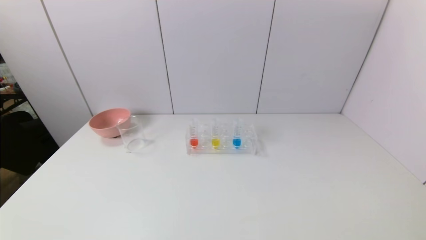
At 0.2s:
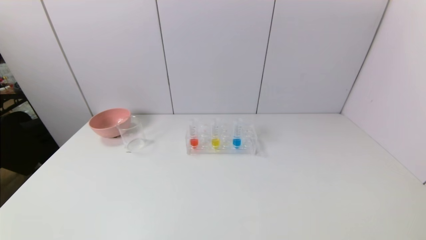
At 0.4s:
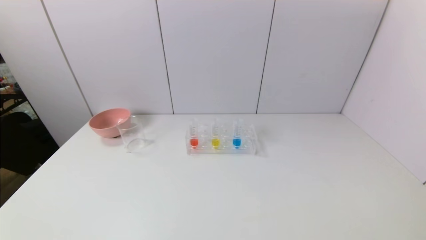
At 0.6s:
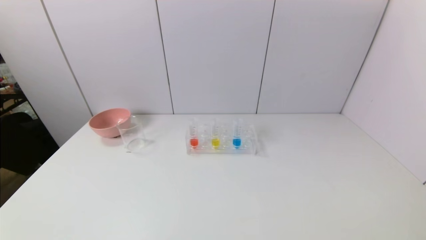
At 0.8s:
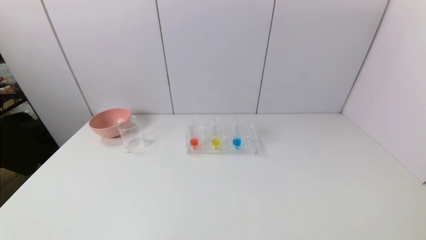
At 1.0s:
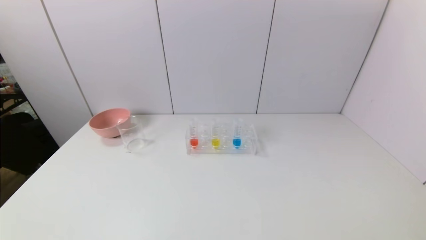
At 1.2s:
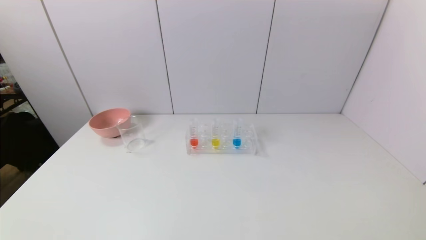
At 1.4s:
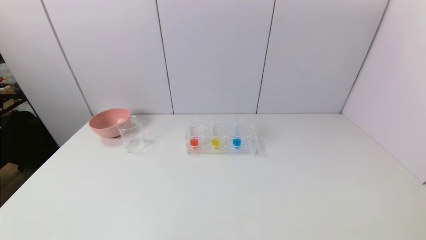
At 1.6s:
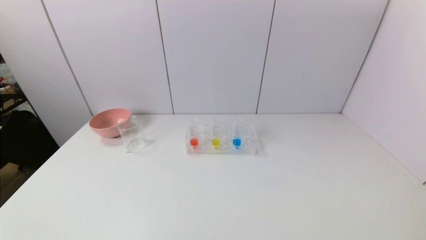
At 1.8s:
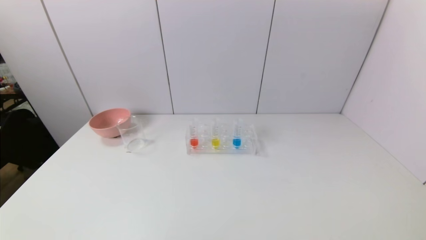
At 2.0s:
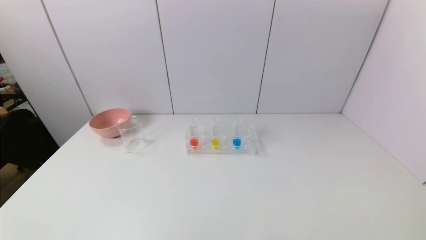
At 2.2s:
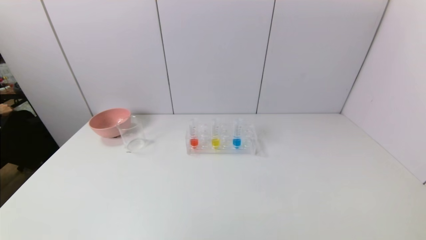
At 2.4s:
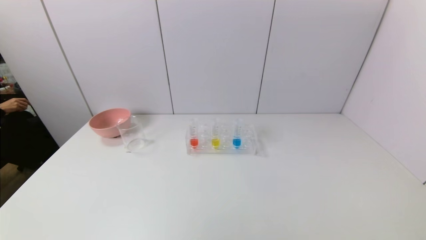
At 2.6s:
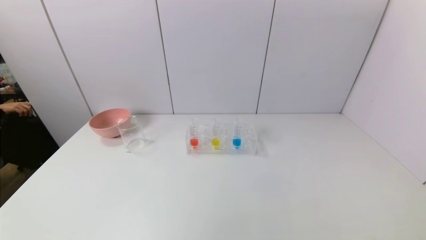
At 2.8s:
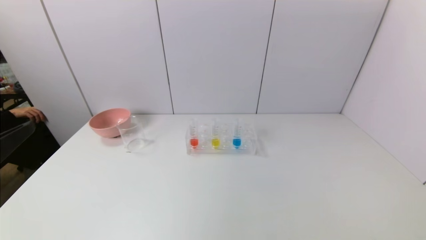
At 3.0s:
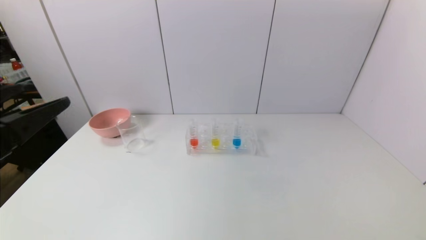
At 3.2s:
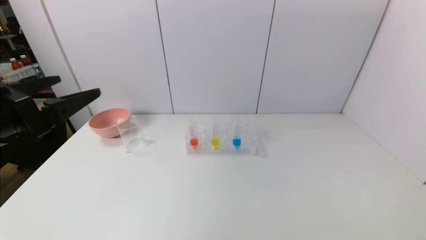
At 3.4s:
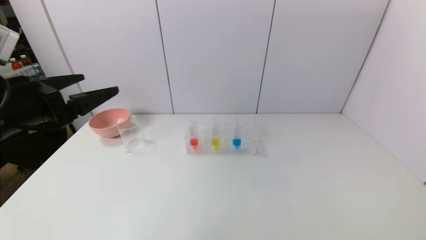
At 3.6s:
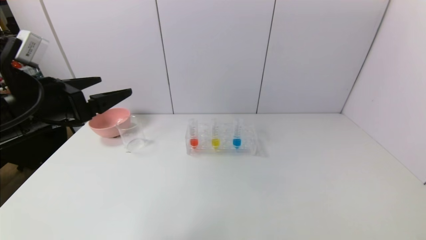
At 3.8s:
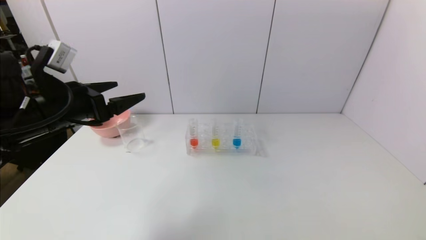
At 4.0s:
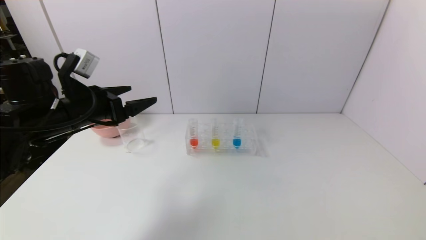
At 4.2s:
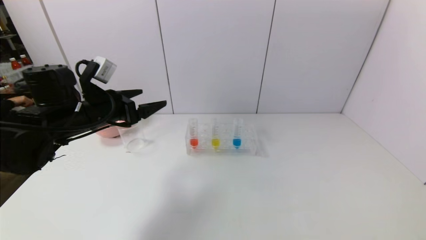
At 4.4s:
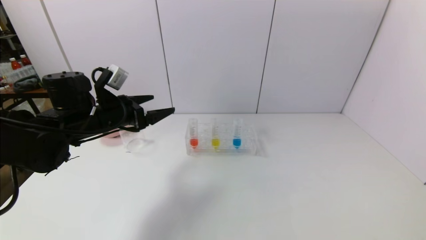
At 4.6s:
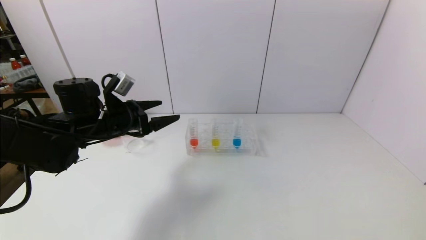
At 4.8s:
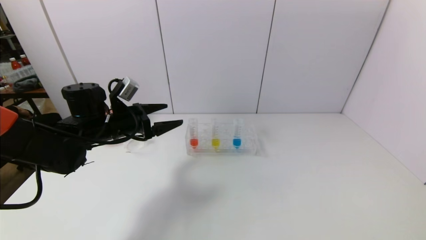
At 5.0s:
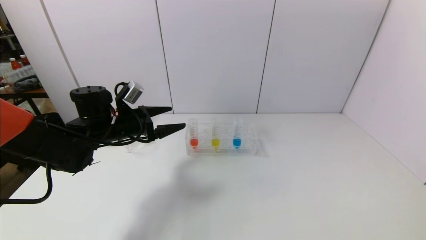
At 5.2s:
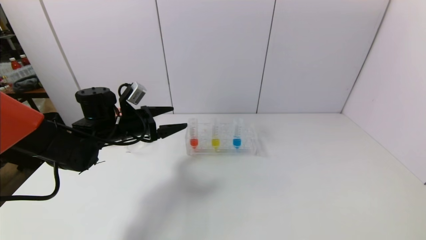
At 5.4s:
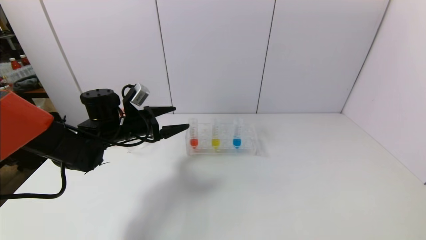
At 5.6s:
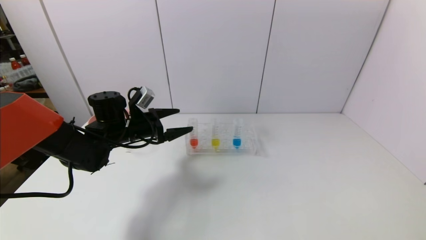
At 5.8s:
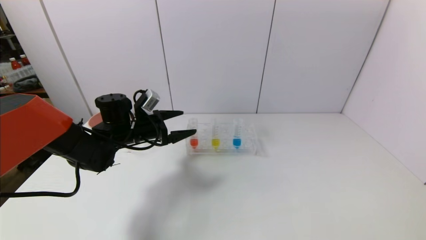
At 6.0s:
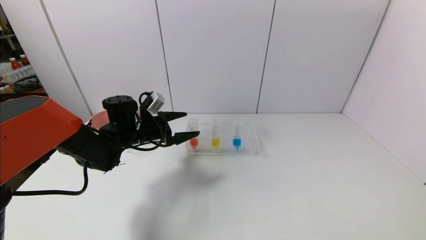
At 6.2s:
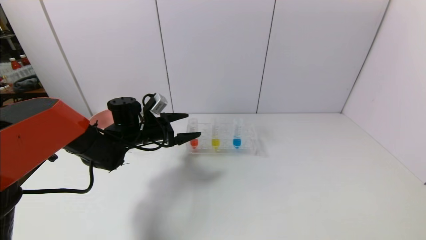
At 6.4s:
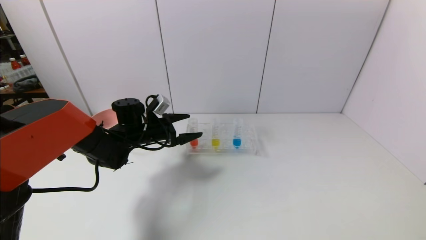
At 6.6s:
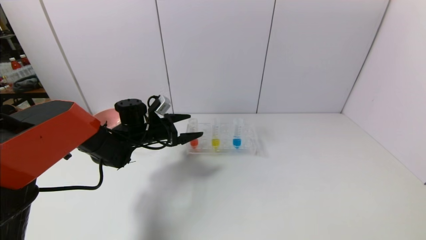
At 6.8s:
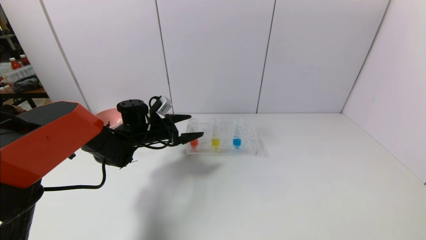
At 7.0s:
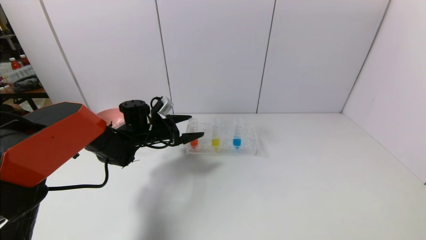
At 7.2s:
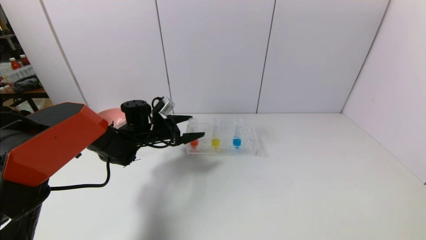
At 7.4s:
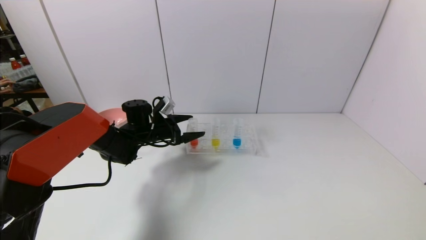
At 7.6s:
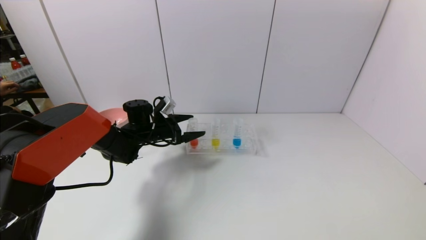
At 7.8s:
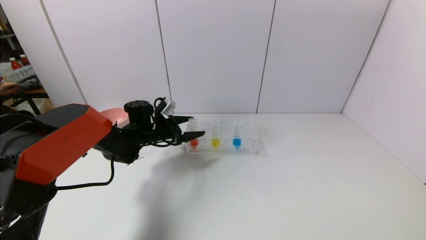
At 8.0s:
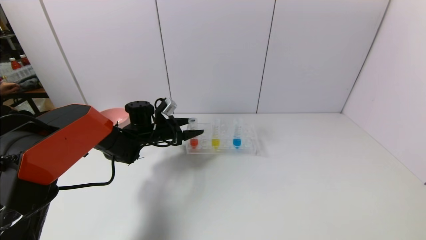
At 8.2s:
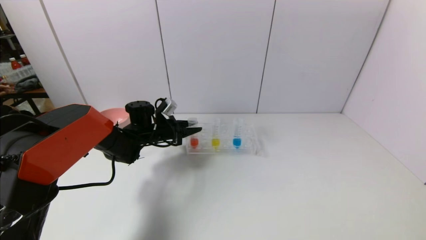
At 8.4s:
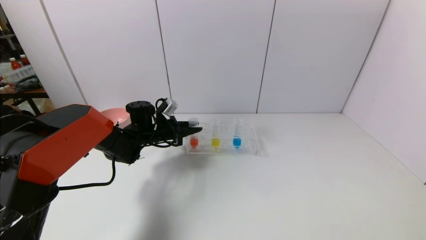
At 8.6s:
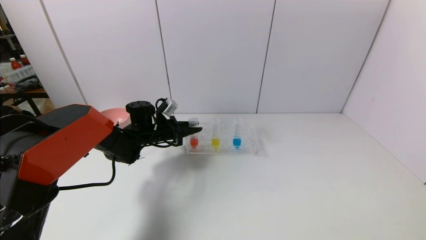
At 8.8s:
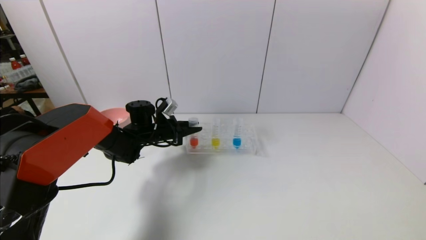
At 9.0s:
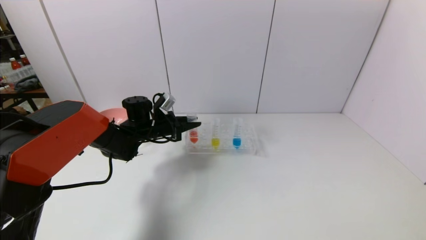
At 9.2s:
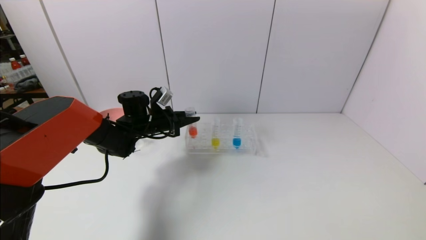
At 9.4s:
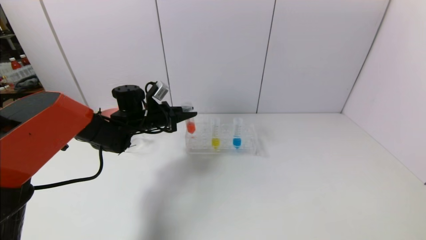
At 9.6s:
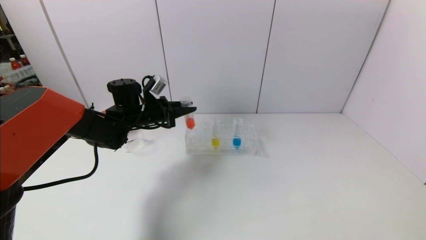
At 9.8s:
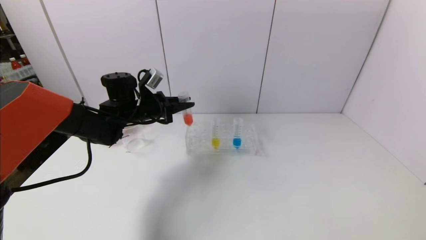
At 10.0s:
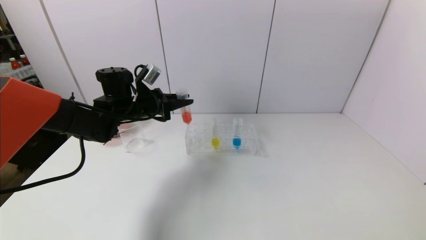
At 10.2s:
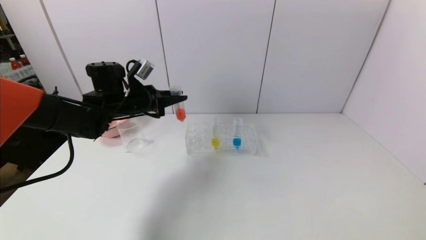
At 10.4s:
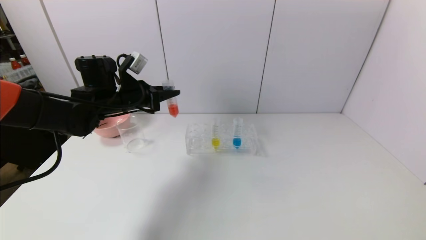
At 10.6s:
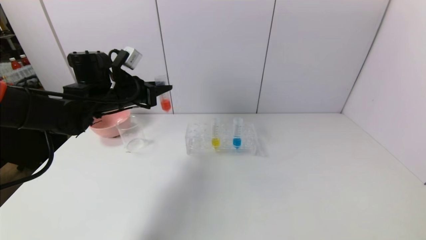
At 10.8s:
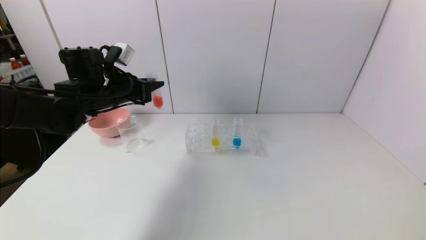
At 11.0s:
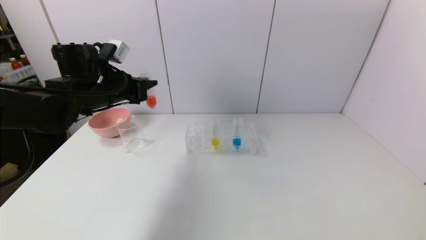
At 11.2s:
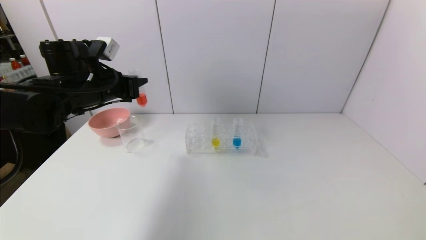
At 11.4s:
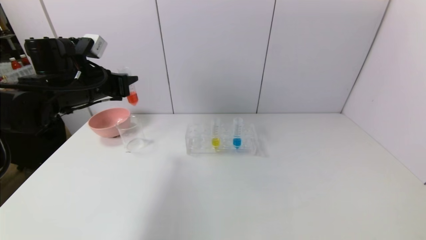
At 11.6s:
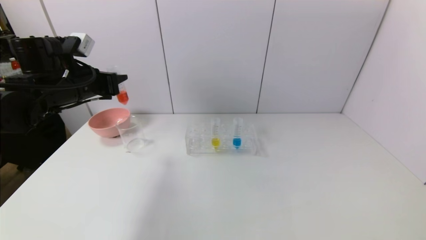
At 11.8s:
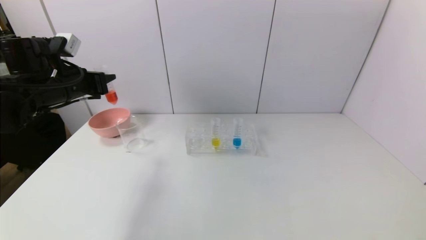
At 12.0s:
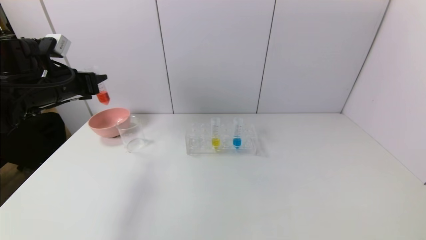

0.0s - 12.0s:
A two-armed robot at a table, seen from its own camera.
Task of the whole recording: pick up the test tube with red pigment and the test tube with blue pigment by grippers and pour them into the container.
Step, 0.0s - 8.4s: Grasp the red reagent with the left gripper.
1.6s - 3.0s: The left gripper heads upward and forward, covering some 25 cm.
3.0s - 4.4s: The left gripper goes some 20 cm forward.
4.4s - 6.0s: The left gripper travels downward and forward by roughly 10 cm.
6.0s - 7.6s: The left gripper changes place by approximately 5 cm.
7.6s - 9.0s: The left gripper closes.
9.0s - 10.4s: The left gripper goes approximately 15 cm upward and backward.
10.4s - 12.0s: The left gripper heads to the left, covering roughly 10 cm.

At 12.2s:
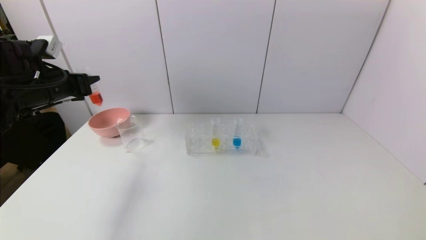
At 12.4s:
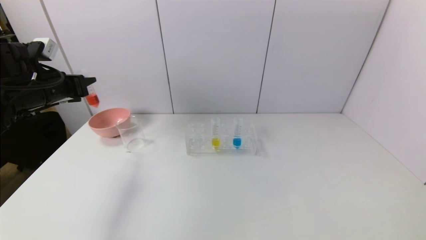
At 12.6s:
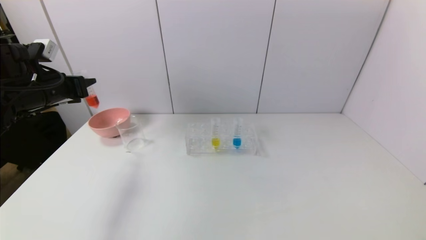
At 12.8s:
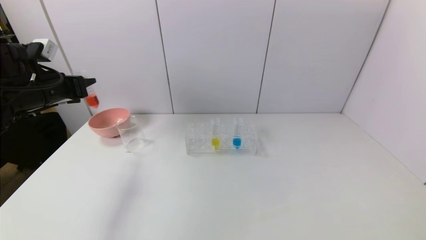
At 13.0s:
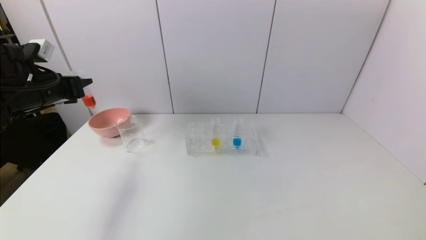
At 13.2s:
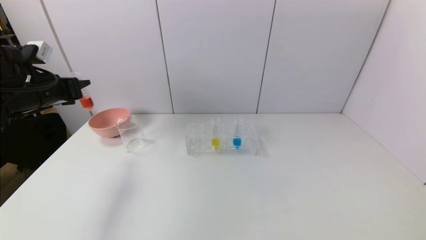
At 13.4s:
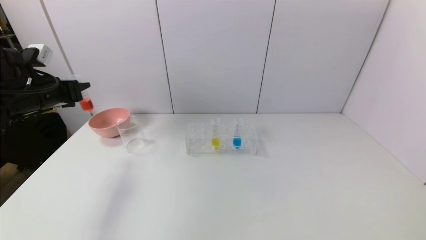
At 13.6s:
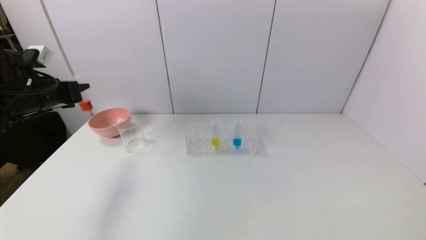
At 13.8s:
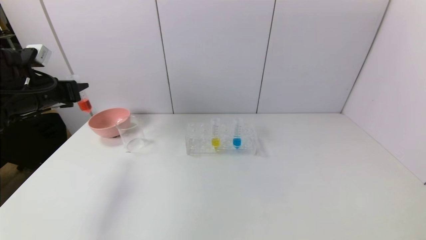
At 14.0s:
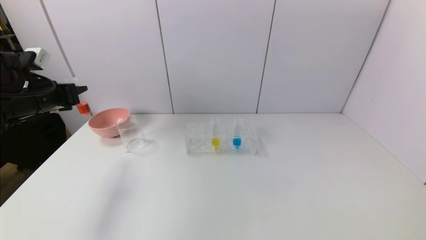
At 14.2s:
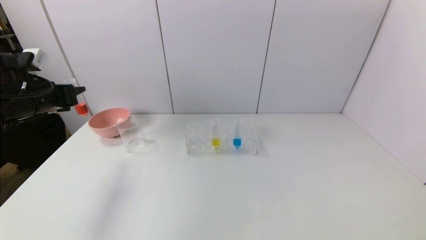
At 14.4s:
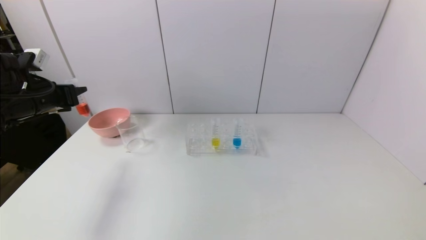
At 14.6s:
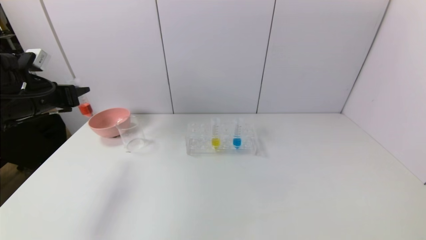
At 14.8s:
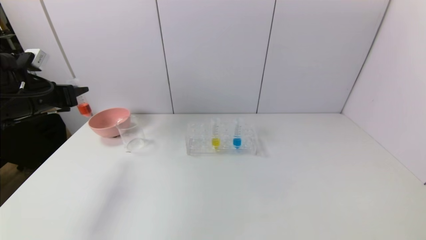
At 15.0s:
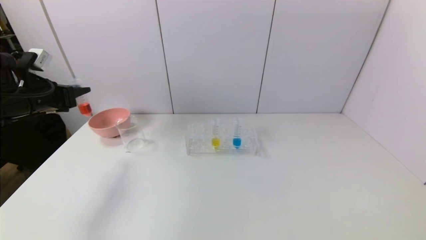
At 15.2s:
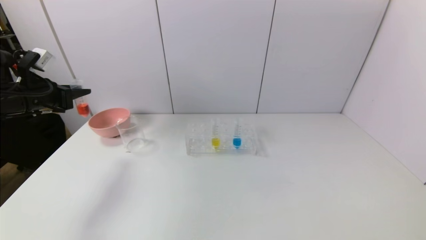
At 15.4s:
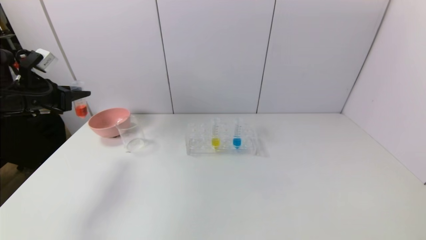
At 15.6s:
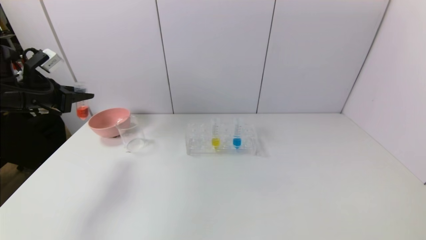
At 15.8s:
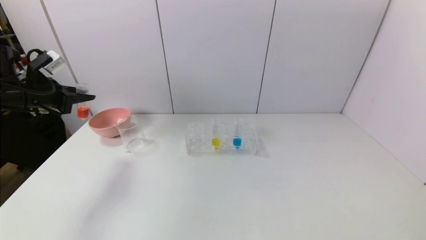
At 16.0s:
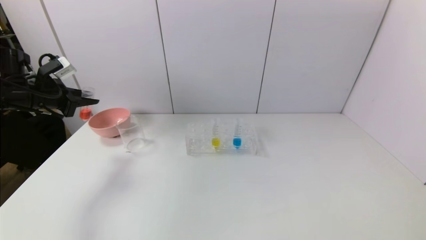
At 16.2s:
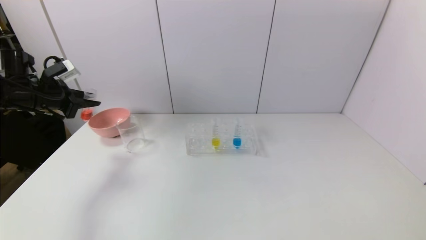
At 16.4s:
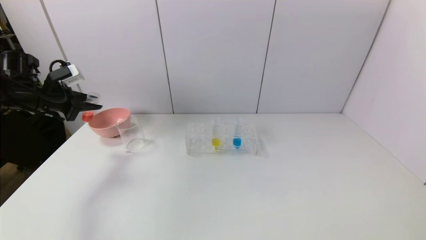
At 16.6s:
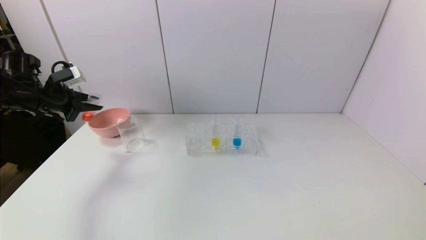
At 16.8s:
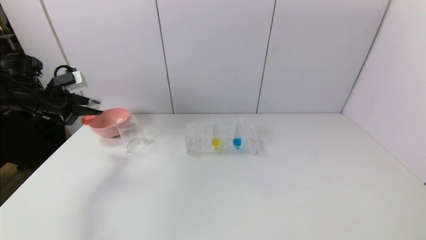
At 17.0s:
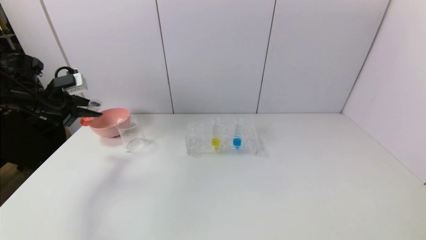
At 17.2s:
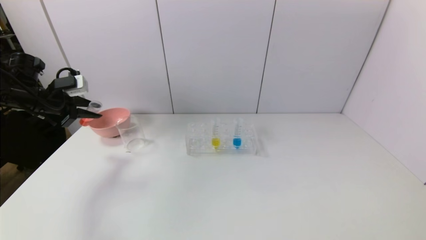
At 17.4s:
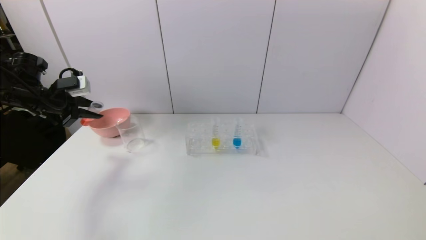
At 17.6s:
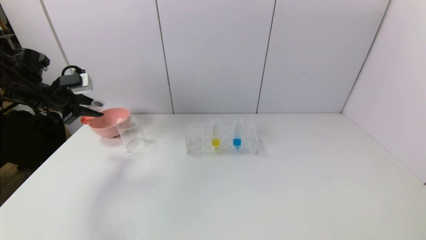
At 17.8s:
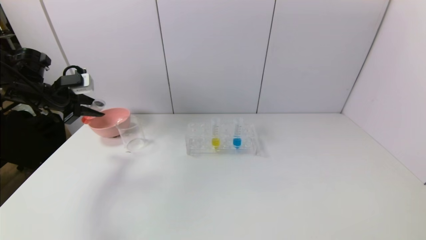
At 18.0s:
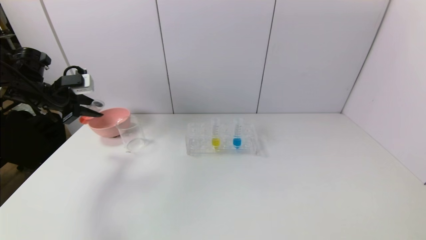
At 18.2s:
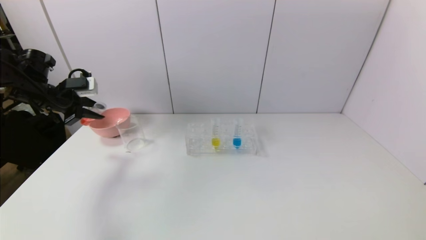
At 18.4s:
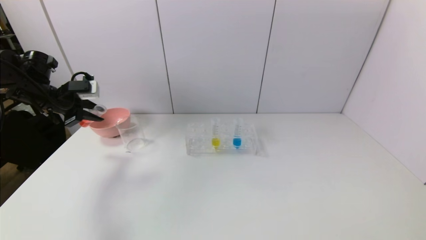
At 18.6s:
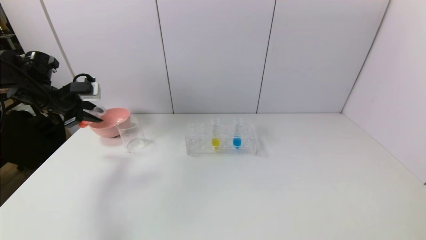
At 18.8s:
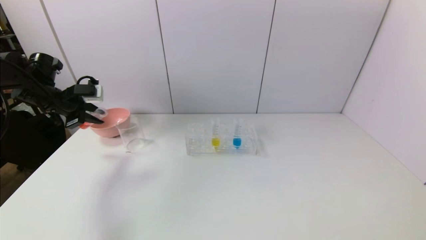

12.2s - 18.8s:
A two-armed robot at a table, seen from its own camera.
Task of the whole recording: pick up the test tube with red pigment and the test tube with blue pigment by grippers and pour them into the container.
12.2s - 13.8s: There are only small adjustments of the grippers.
17.2s - 18.8s: There are only small adjustments of the grippers.
